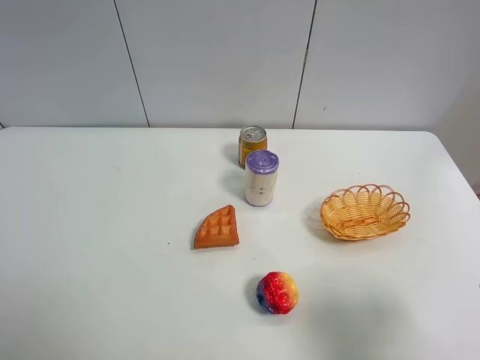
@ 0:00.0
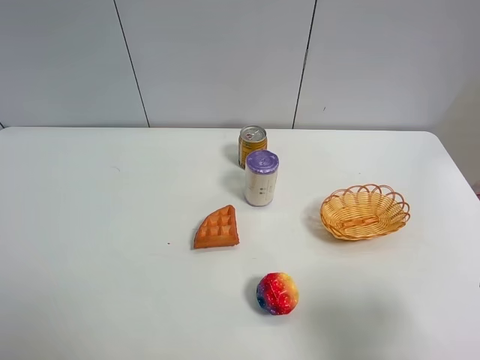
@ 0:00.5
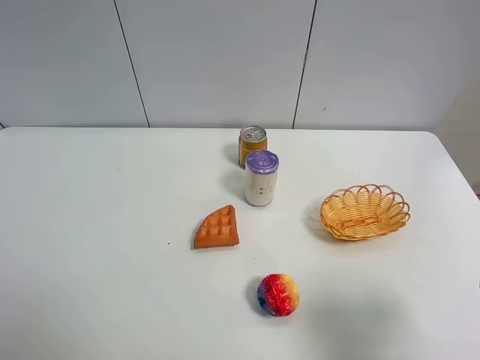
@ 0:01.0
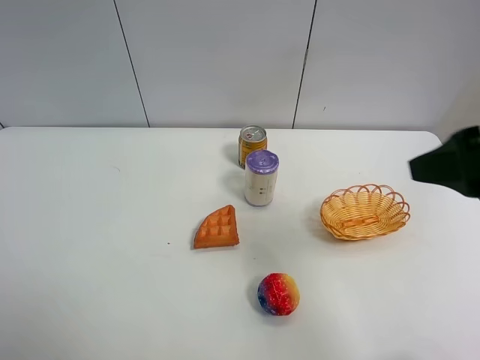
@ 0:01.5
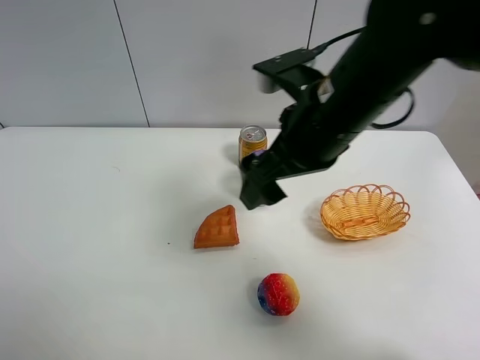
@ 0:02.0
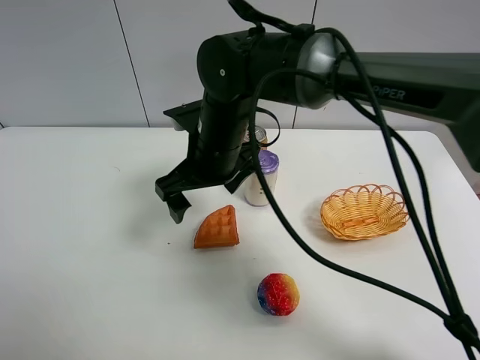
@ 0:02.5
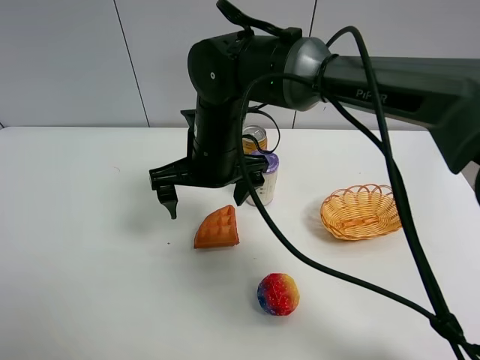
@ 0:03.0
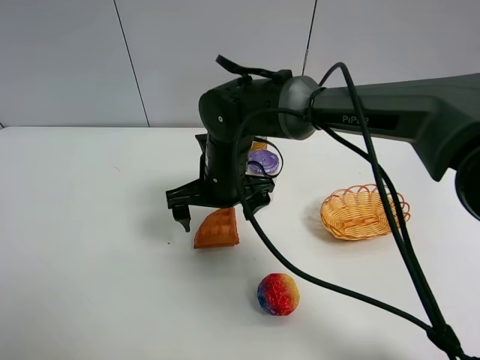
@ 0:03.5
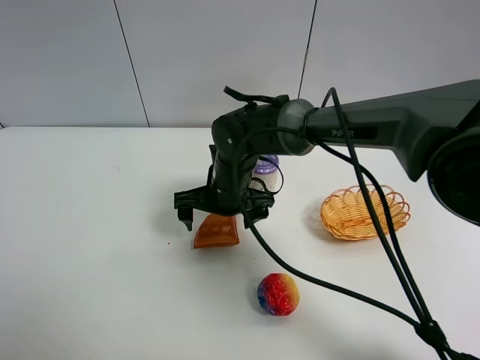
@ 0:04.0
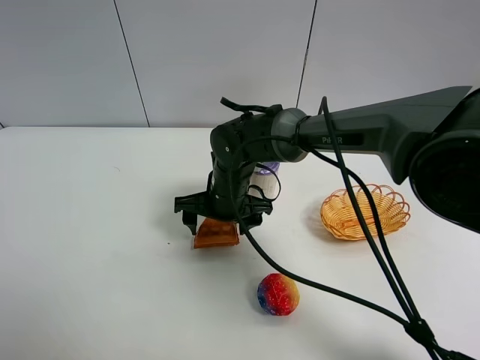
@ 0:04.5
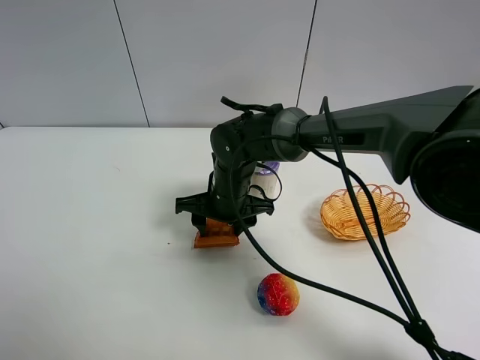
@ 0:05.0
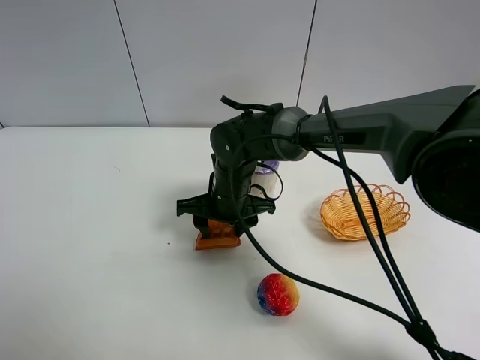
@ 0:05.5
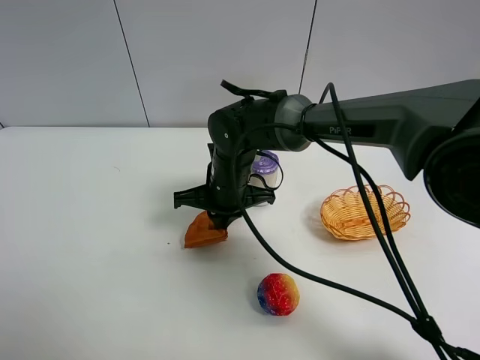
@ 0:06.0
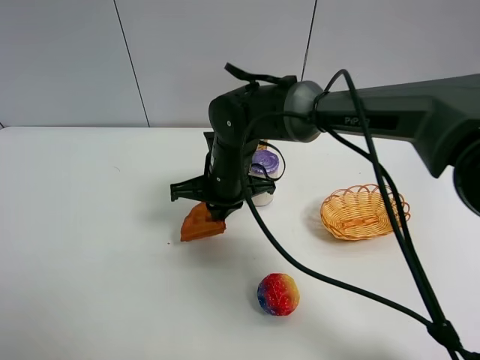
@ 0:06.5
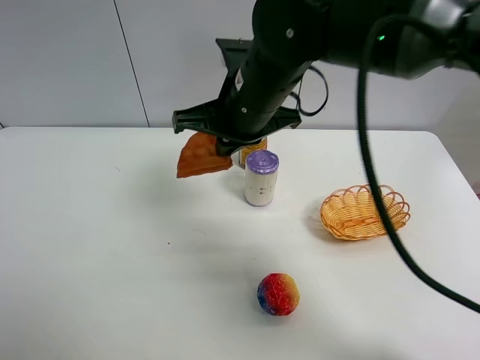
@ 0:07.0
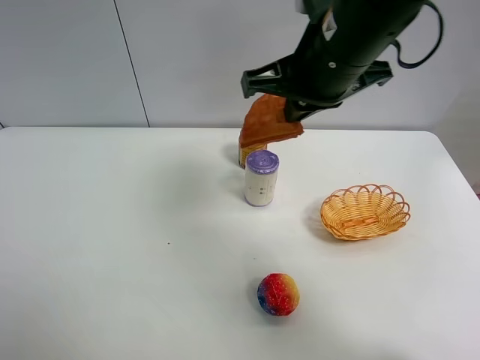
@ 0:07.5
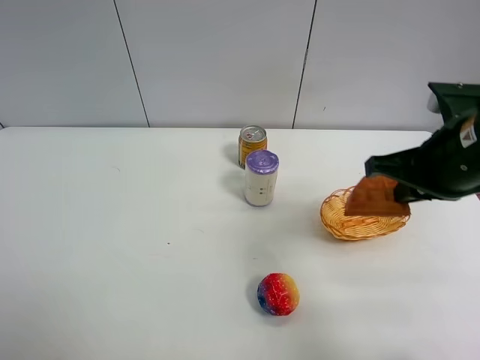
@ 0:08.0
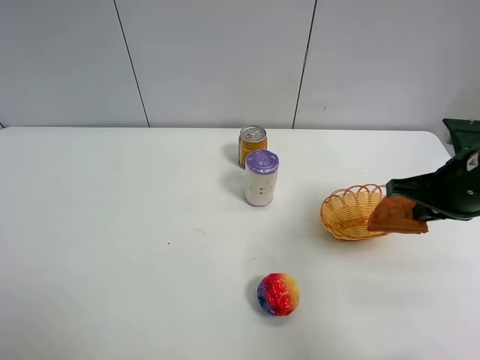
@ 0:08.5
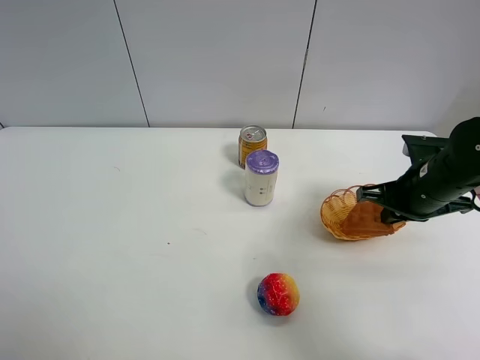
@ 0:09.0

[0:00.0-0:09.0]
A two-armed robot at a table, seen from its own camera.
Task of the whole recording: Put the bakery in the basket.
Step, 0:00.0 to 0:05.5: Grasp the bread with right gripper.
0:00.0 to 0:02.0: The right gripper is displaced forward and to the left by approximately 30 cm.
0:02.0 to 0:04.5: The right gripper shifts approximately 25 cm downward, to the left and forward.
0:04.5 to 0:07.0: The right gripper travels upward by some 20 cm, and closes up.
0:07.0 to 0:09.0: The right gripper is displaced to the right and downward by approximately 25 cm.

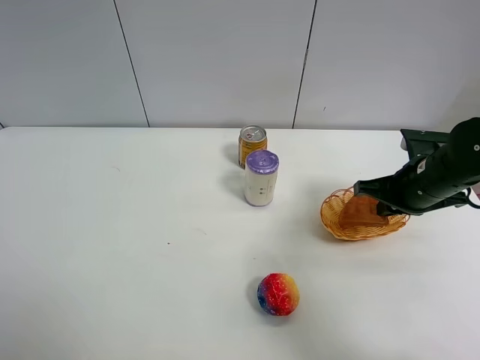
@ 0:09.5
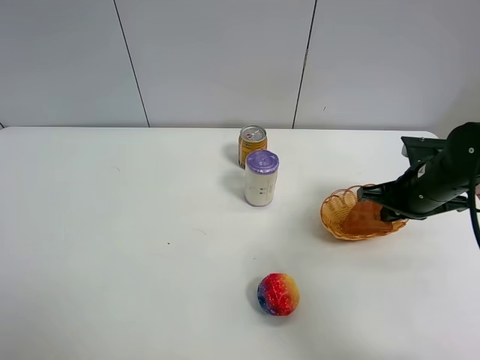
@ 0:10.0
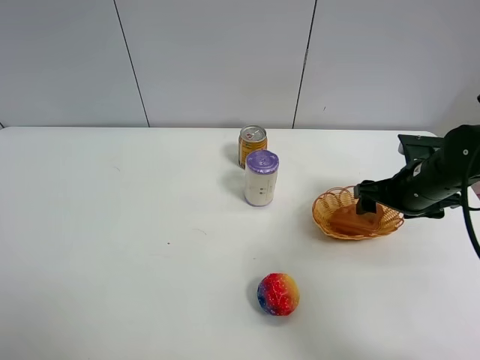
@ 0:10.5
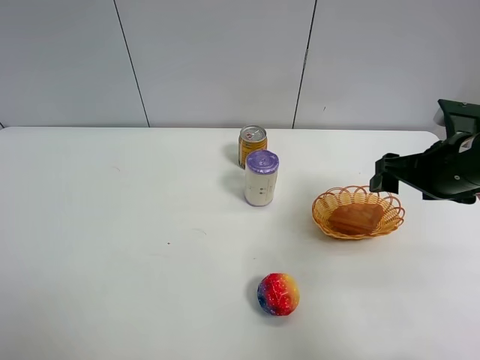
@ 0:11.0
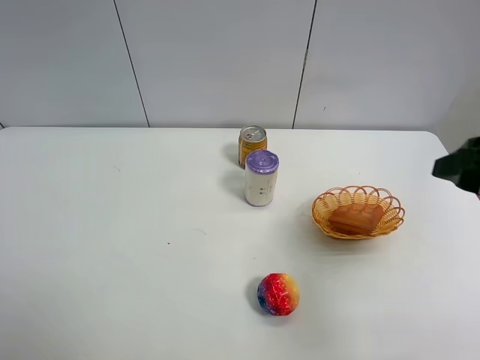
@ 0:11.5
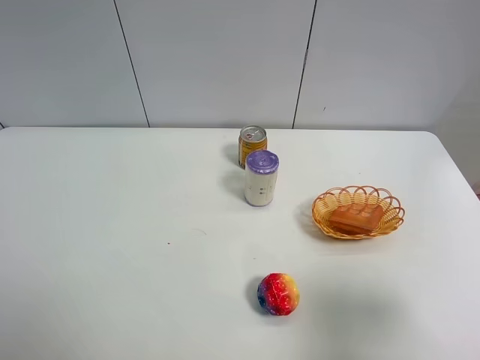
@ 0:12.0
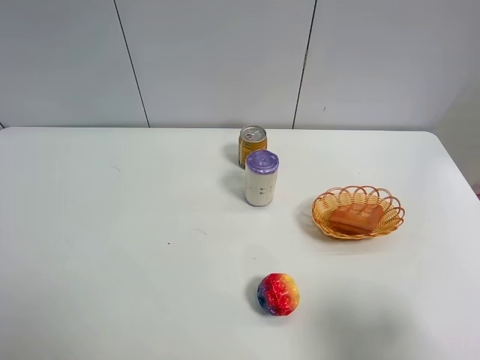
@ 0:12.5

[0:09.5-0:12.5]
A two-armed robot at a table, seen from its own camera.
Task of the whole recording: Put the bakery in the basket.
0:09.5 to 0:11.0: The right gripper is displaced upward by approximately 5 cm, and opens up.
0:11.0 to 0:12.5: The right gripper heads backward, covering roughly 25 cm.

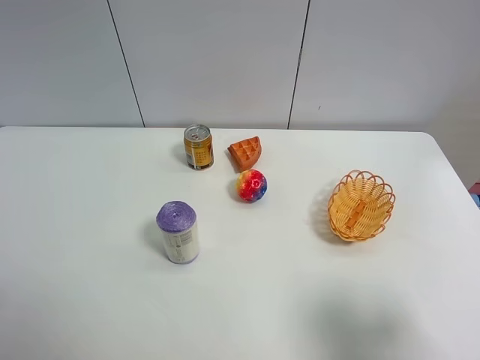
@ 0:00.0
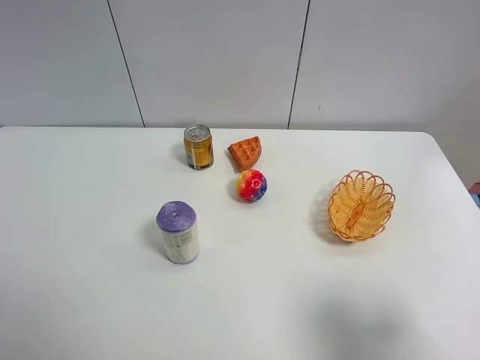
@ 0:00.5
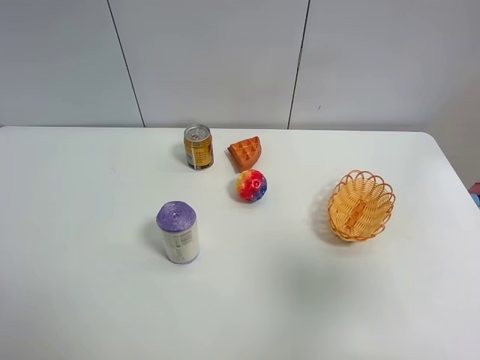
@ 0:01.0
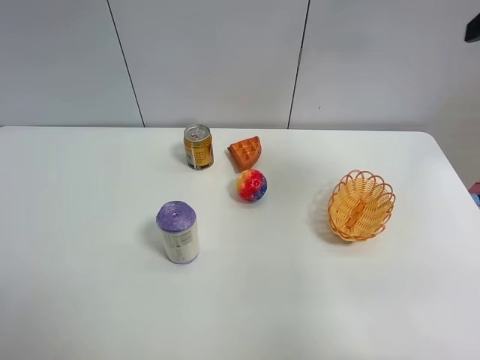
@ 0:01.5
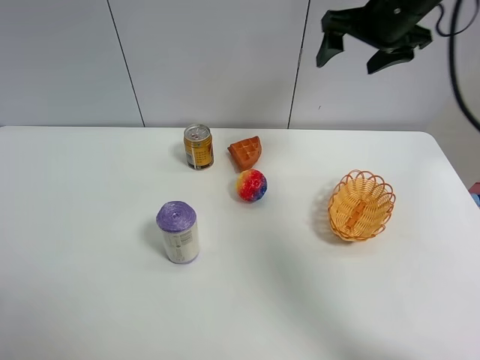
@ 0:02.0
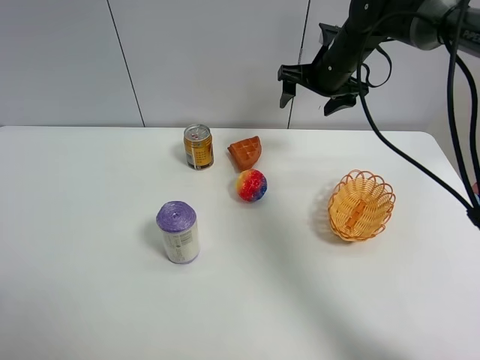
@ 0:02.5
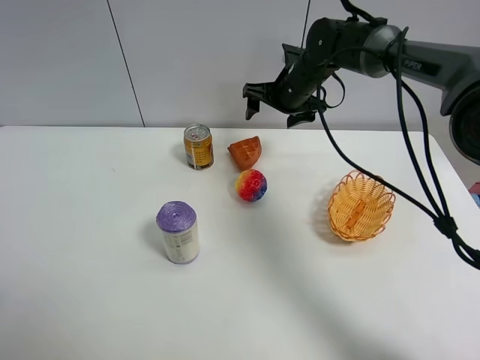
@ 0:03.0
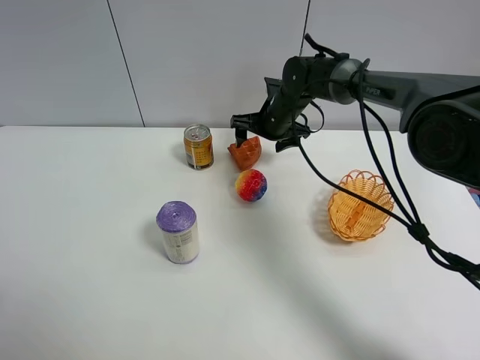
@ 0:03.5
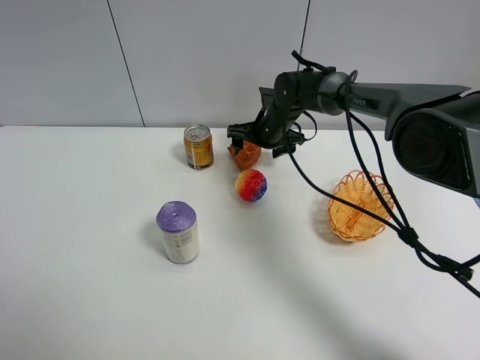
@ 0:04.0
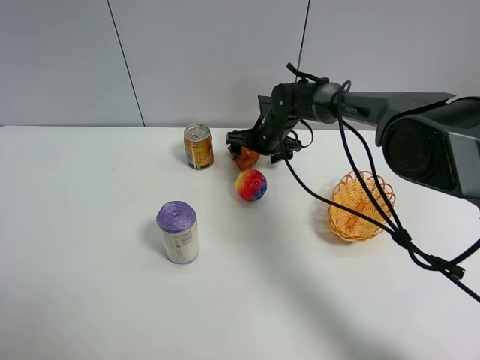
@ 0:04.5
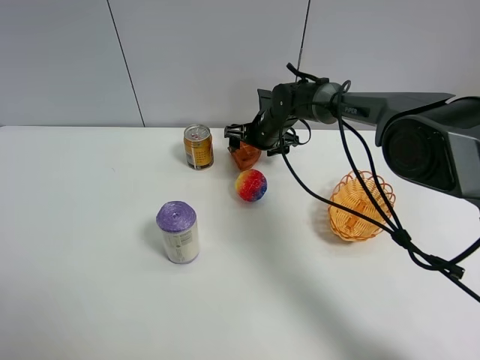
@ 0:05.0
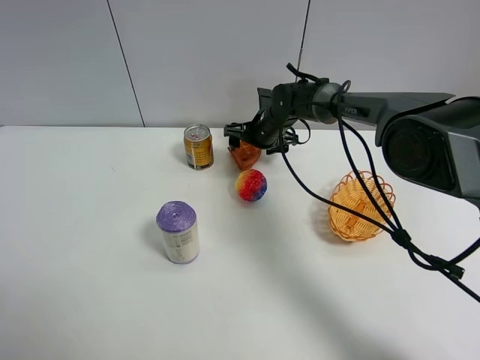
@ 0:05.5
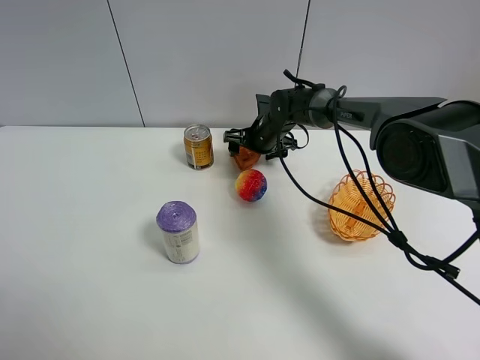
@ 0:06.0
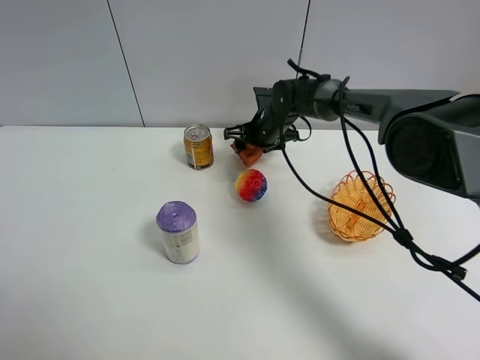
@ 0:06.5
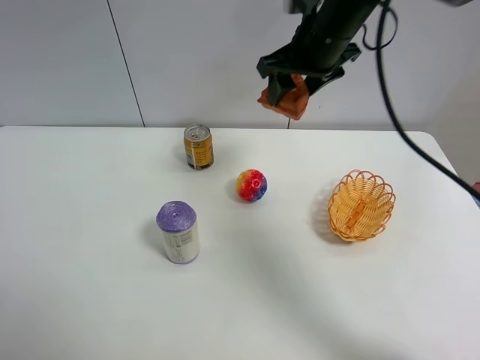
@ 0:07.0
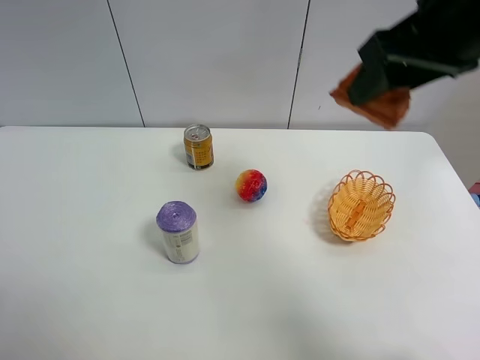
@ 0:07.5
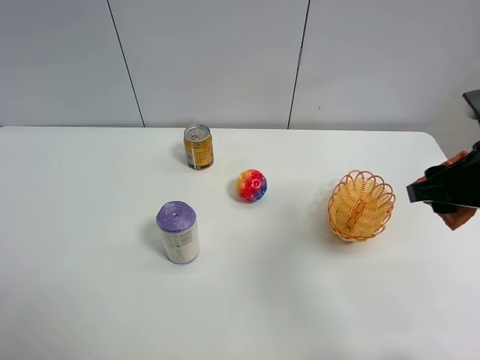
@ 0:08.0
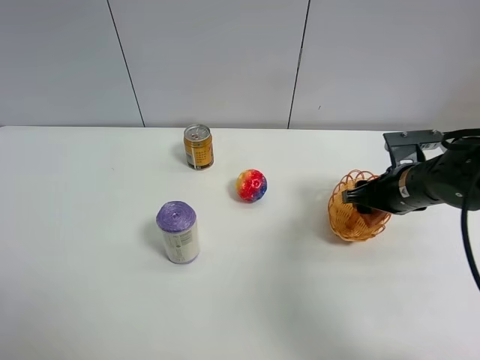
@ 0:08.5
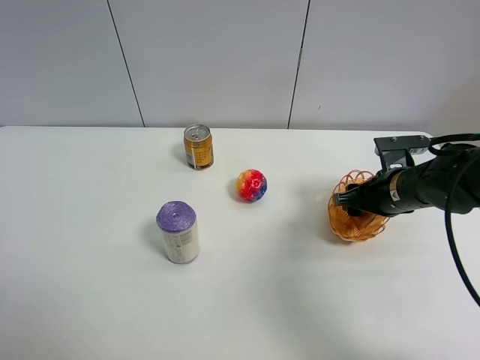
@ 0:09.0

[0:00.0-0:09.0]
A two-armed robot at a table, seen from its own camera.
Task of the whole recording: Put the bakery in the basket.
Step, 0:00.0 to 0:06.0: Grasp the bread with right gripper.
0:00.0 to 0:02.0: The right gripper is displaced forward by about 40 cm.
0:02.0 to 0:04.5: The right gripper moves downward and to the left, some 25 cm.
0:04.5 to 0:07.0: The right gripper travels upward and backward by about 25 cm, and closes up.
0:07.0 to 0:09.0: The right gripper shifts roughly 25 cm downward, to the right and backward.

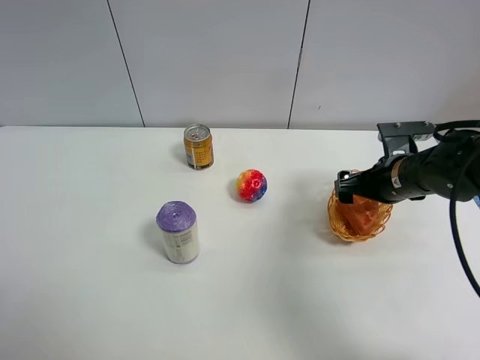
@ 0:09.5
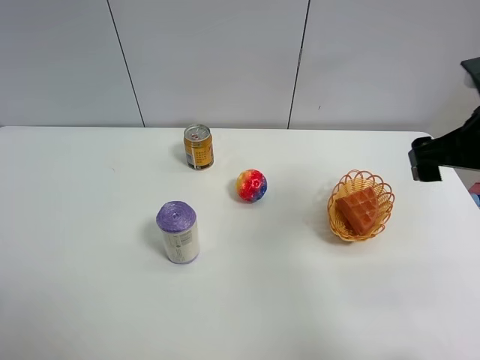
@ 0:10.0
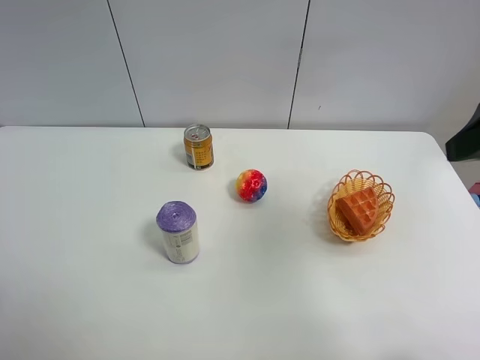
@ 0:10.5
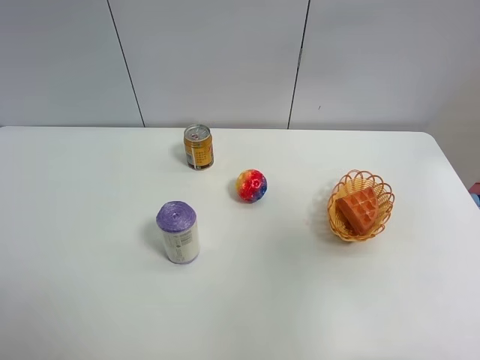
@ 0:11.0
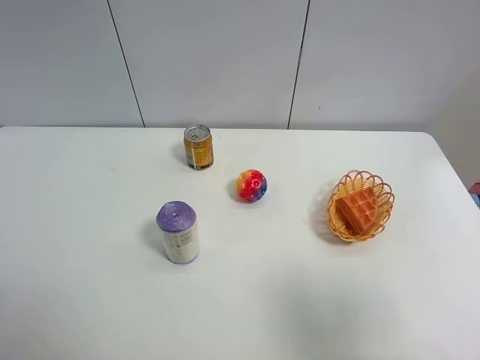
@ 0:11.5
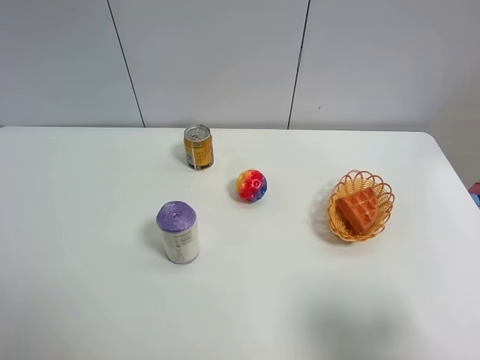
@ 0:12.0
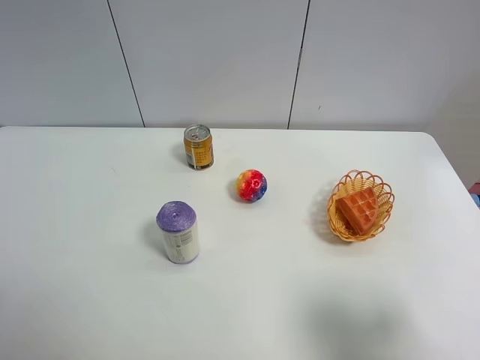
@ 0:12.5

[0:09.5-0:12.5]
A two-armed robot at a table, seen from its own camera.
Task of the whole recording: Put the bakery in the basket.
0:09.5 to 0:11.0: The right gripper moves upward and backward, about 35 cm.
0:11.0 to 0:12.5: The right gripper travels downward and backward by roughly 20 cm.
